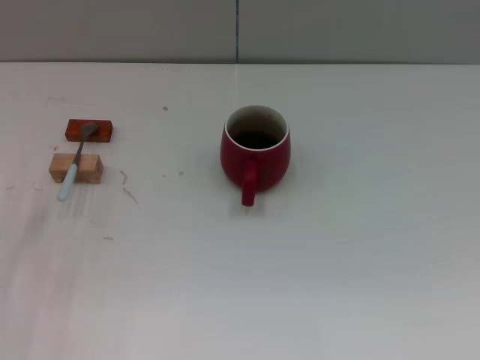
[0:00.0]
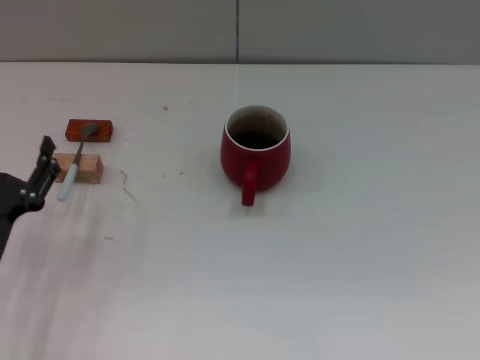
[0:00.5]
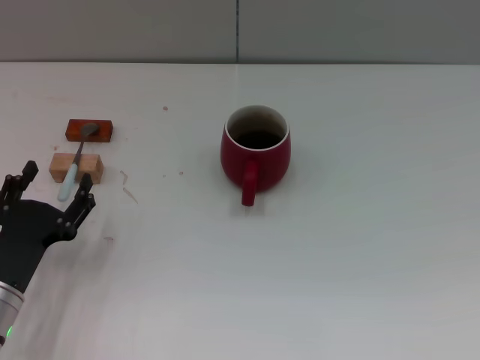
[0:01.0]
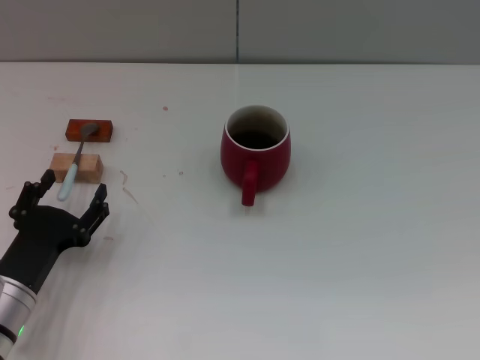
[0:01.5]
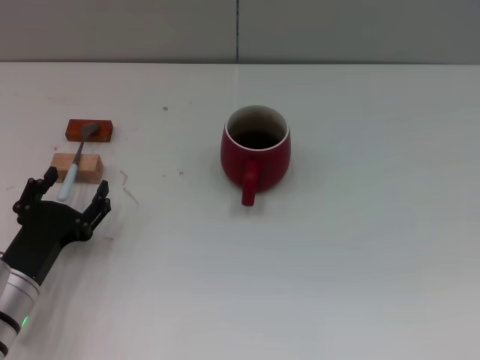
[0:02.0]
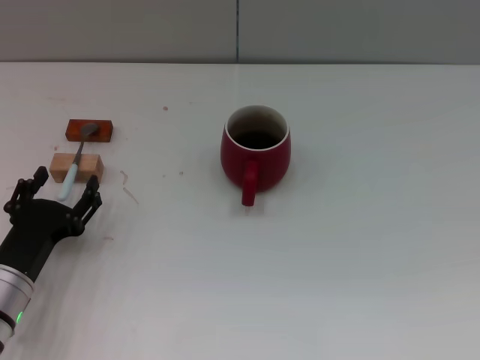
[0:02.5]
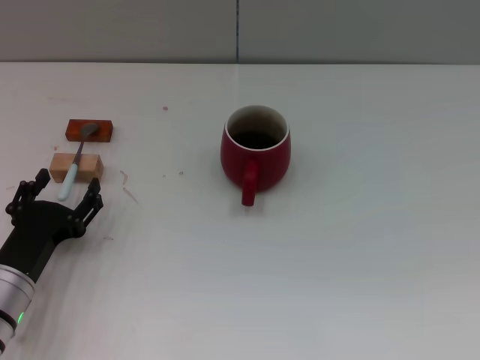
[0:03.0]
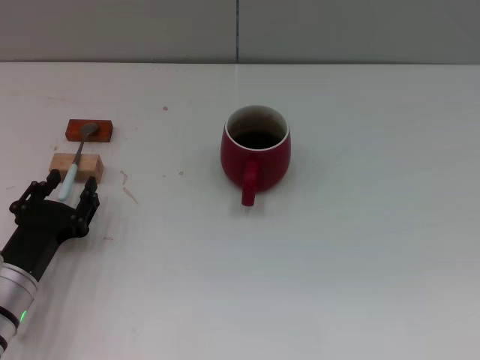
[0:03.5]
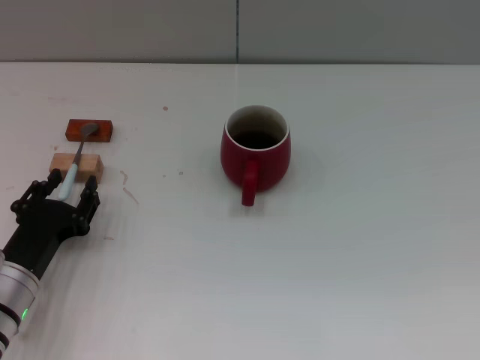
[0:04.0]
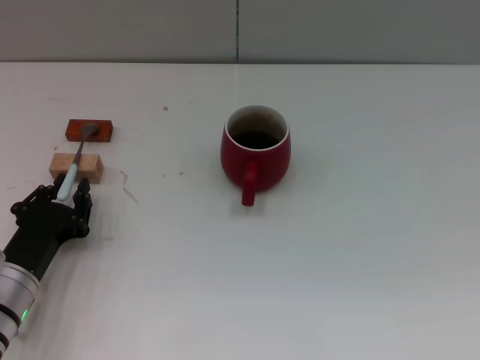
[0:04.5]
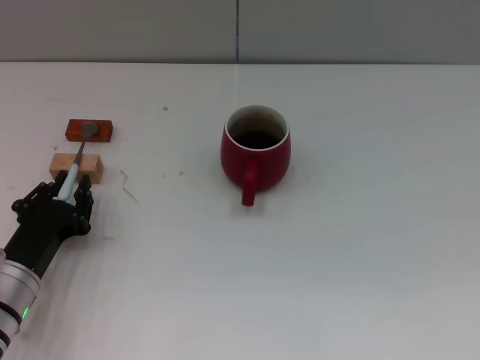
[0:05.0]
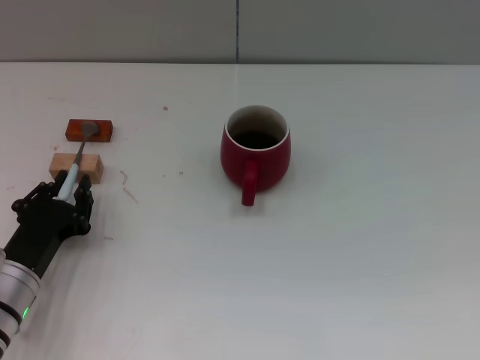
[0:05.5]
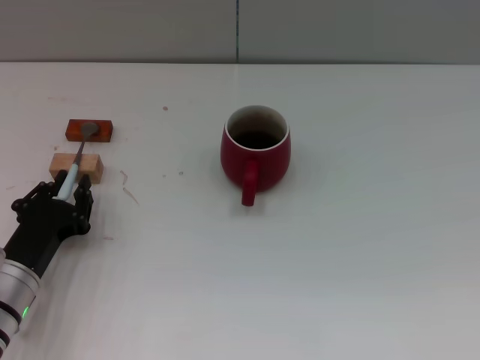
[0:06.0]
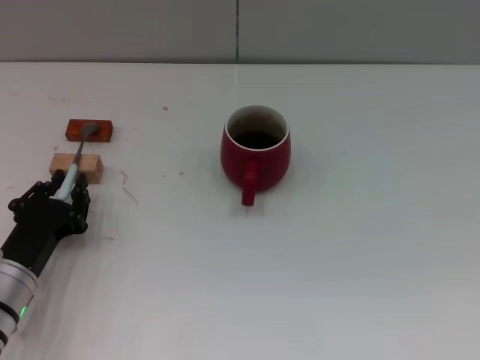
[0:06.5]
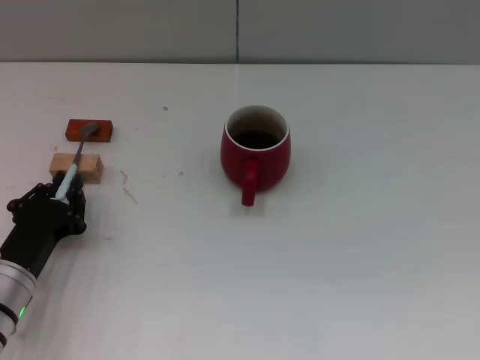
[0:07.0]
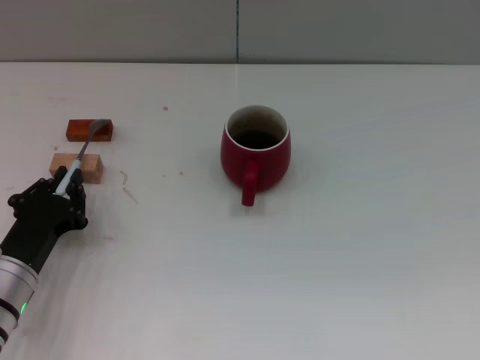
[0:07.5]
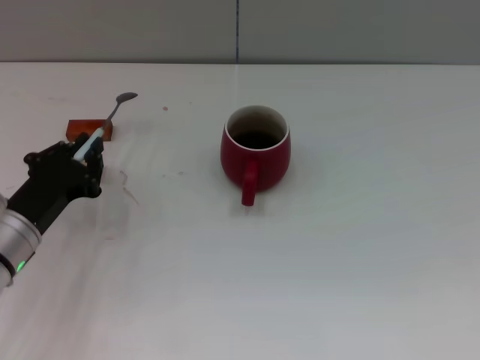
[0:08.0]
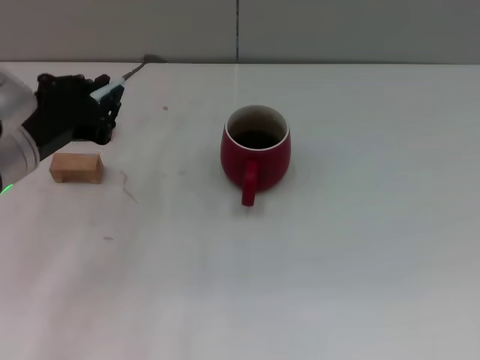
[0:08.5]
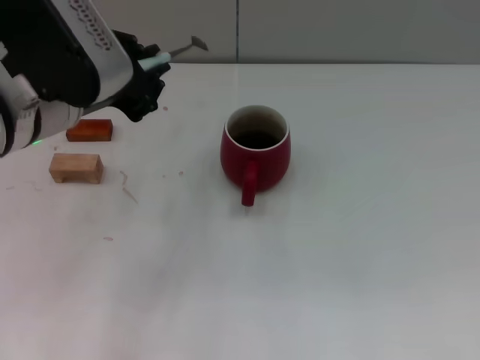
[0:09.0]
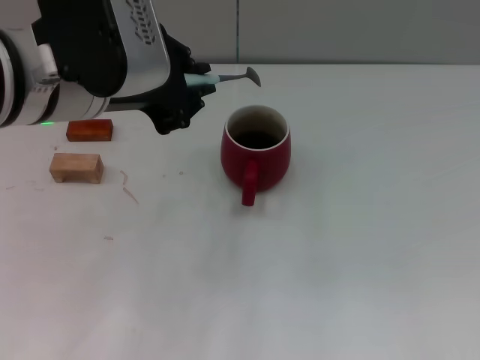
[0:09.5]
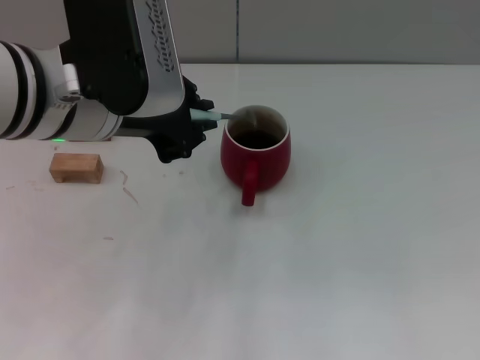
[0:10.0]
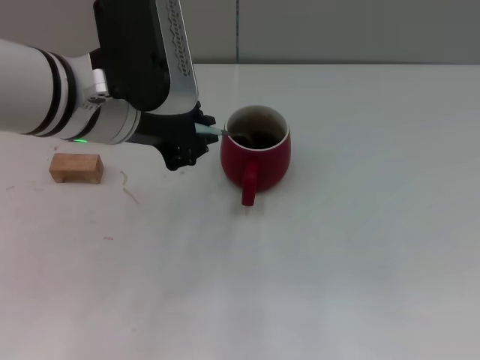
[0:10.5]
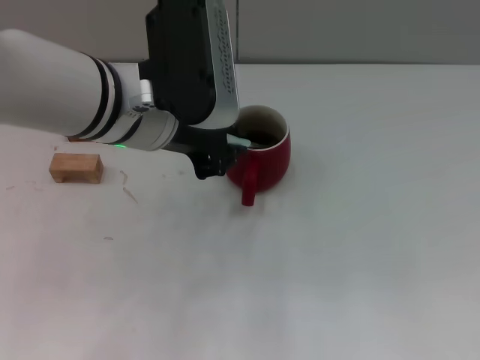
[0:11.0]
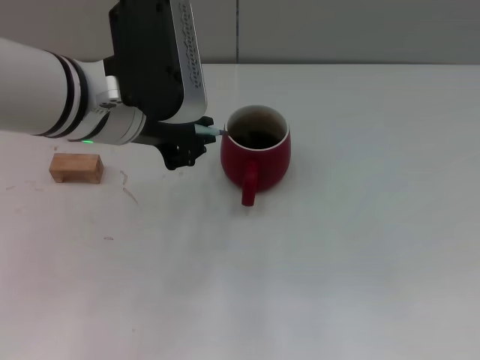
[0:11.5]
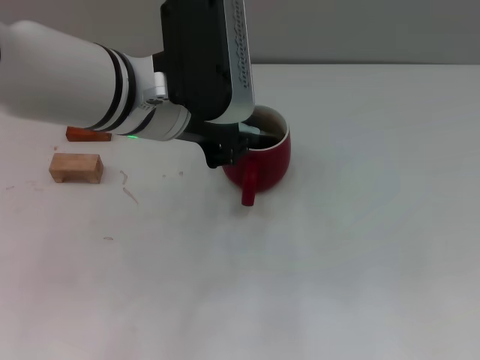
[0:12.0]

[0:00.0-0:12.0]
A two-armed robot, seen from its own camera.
Task of the whole recording: Move the red cup to the center, lift the blue spoon, stir it three times in the cup, and put the spoon into the cup.
Step, 0:00.5 to 0:09.0: Pick up the spoon with the left gripper.
0:00.0 to 0:02.0: The left gripper heads to the right, covering about 5 cm.
0:02.0 to 0:04.0: The left gripper closes.
0:04.0 to 0:06.0: The left gripper closes.
0:06.0 to 0:08.0: The left gripper moves approximately 5 cm.
0:08.0 to 0:10.0: The left gripper is displaced upward and to the right by roughly 25 cm.
0:10.0 to 0:12.0: The left gripper moves about 5 cm.

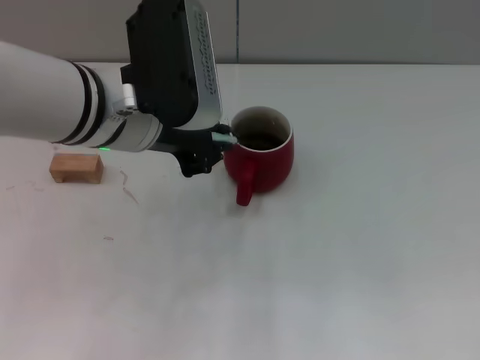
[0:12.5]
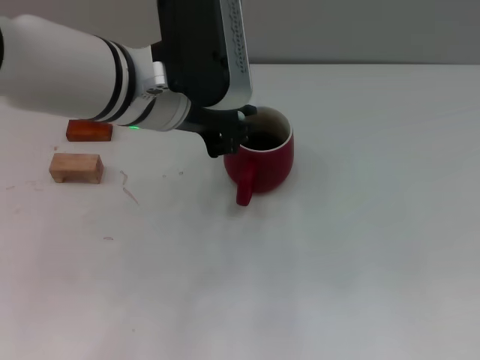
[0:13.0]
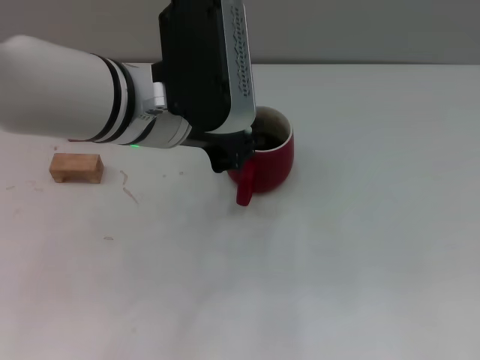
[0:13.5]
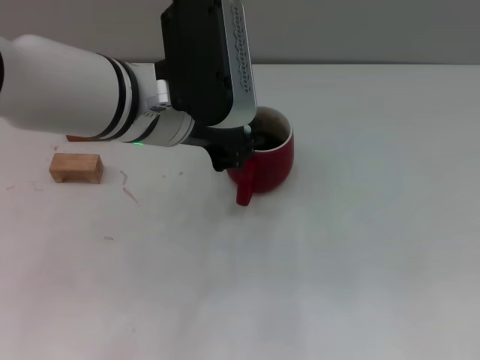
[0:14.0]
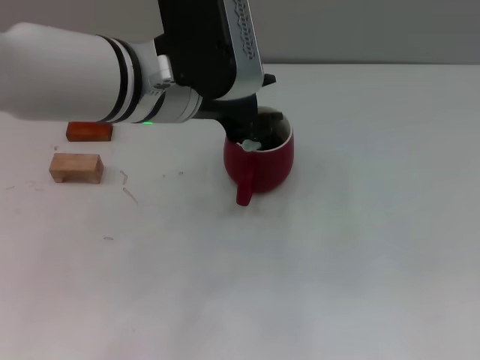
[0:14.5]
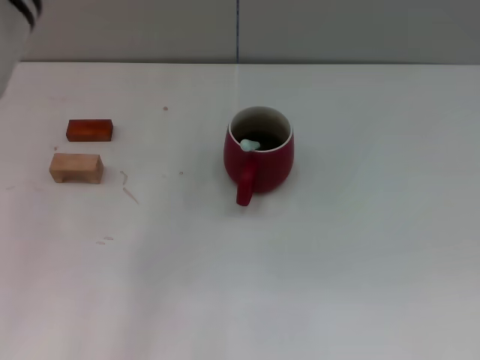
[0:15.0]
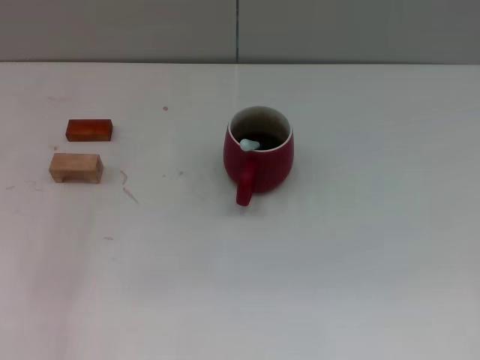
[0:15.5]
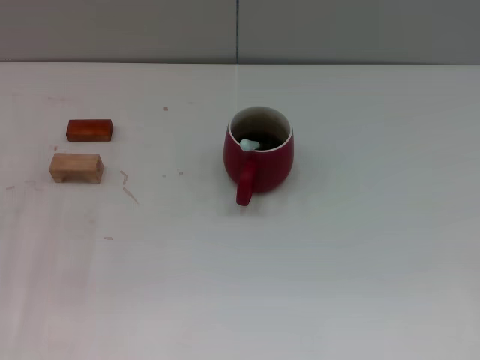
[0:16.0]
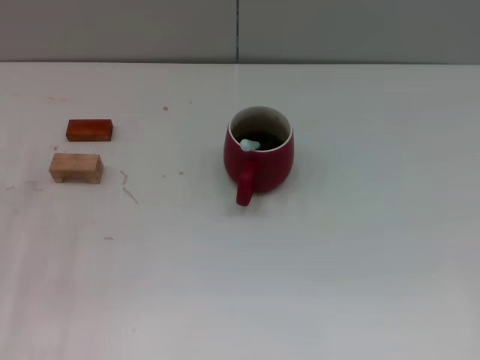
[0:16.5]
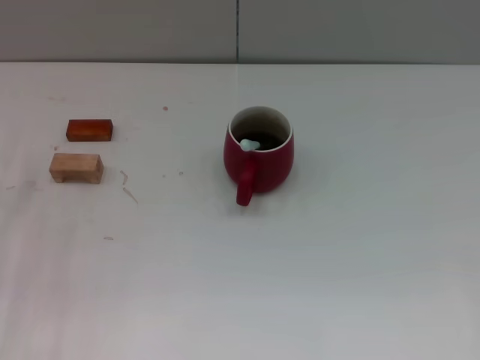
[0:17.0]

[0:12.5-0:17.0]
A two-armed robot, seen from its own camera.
Task of the whole recording: Move the red cup to the center, lift the blue spoon, stir it three times in the cup, and put the spoon into the cup.
Step, 0:12.5 to 0:15.5: Stir the coffee in the cup with the left gripper.
0:12.5 to 0:14.5: There are only small adjustments of the grippers.
0:14.5 to 0:17.0: The left gripper is displaced to the left and downward by roughly 25 cm, and opens its fingers.

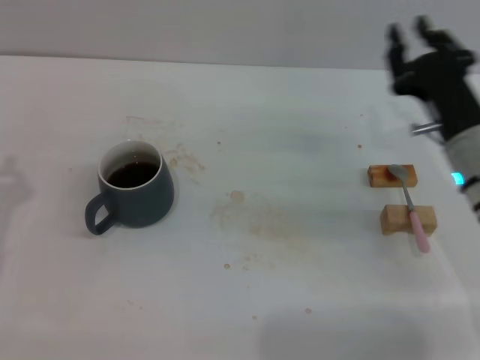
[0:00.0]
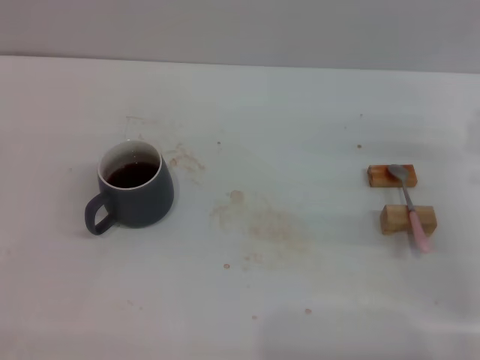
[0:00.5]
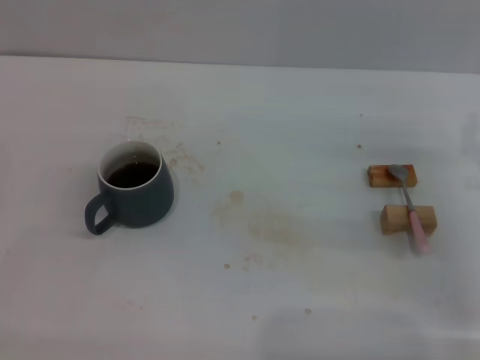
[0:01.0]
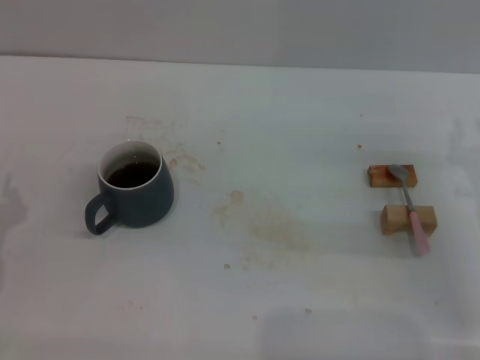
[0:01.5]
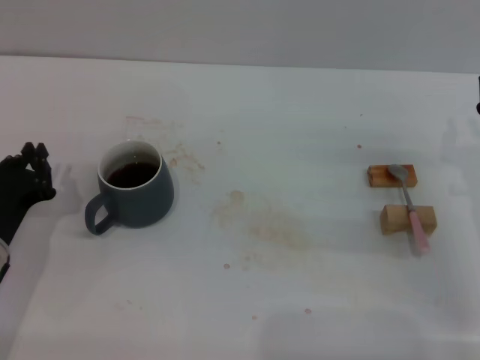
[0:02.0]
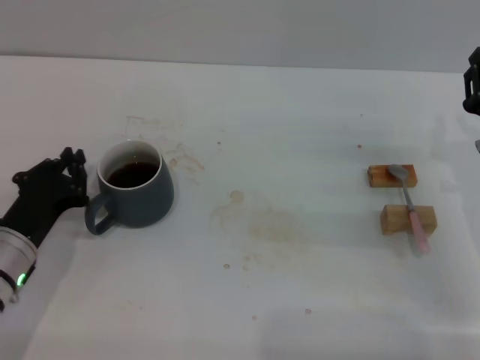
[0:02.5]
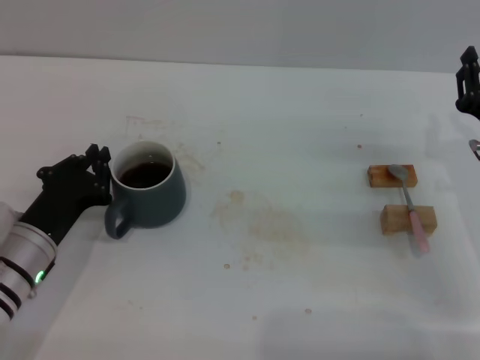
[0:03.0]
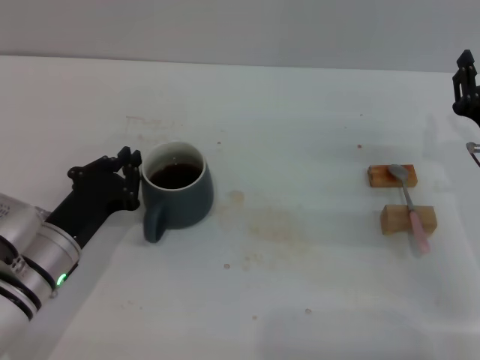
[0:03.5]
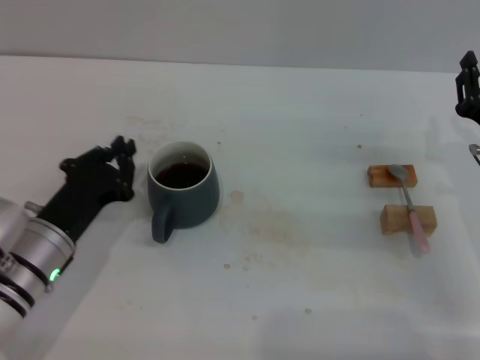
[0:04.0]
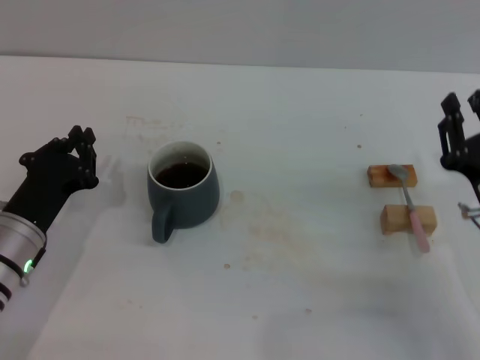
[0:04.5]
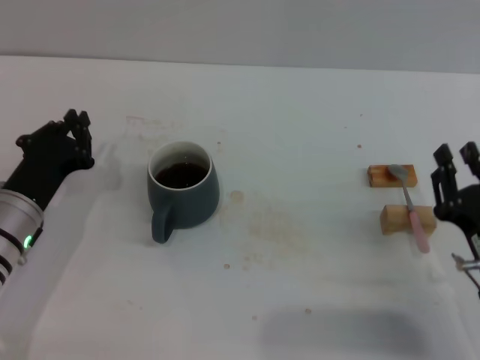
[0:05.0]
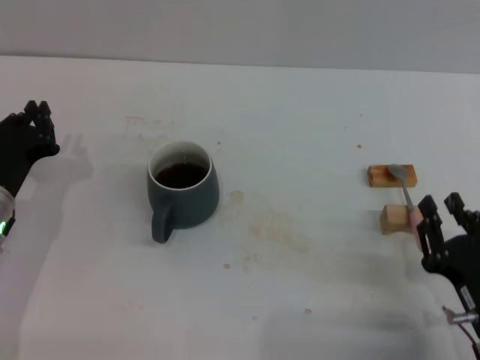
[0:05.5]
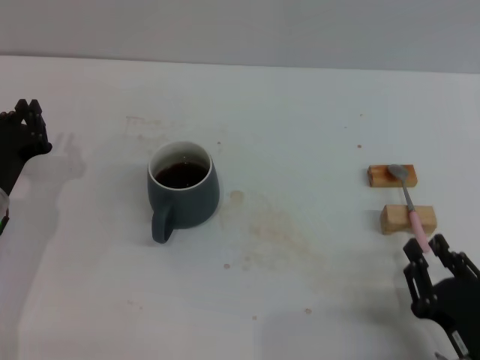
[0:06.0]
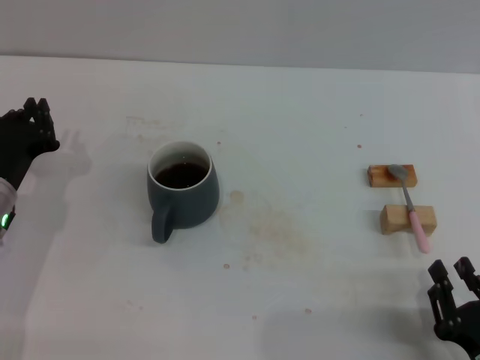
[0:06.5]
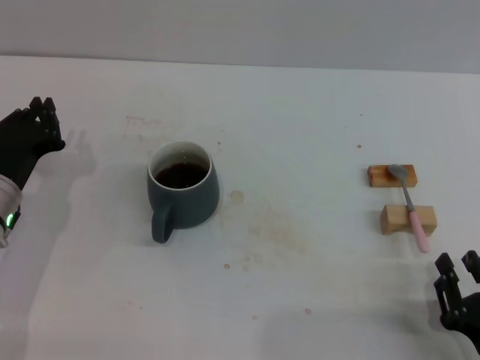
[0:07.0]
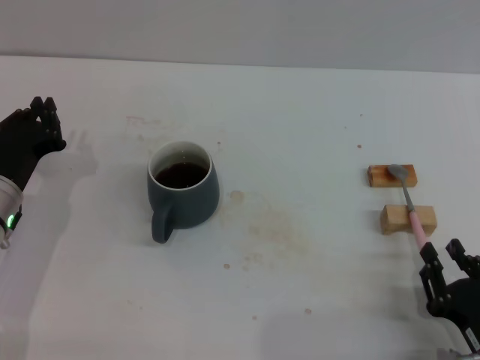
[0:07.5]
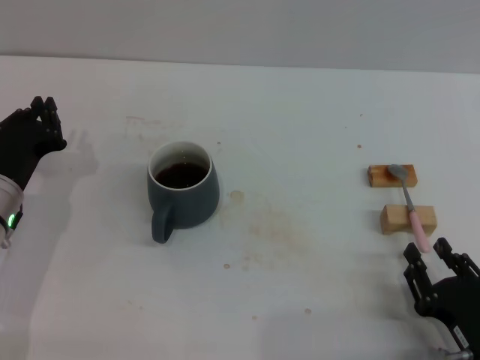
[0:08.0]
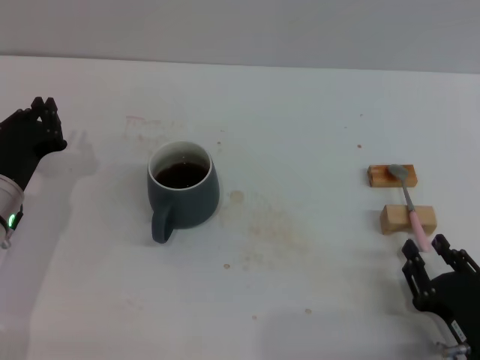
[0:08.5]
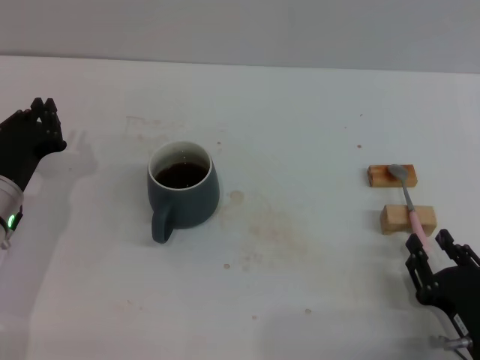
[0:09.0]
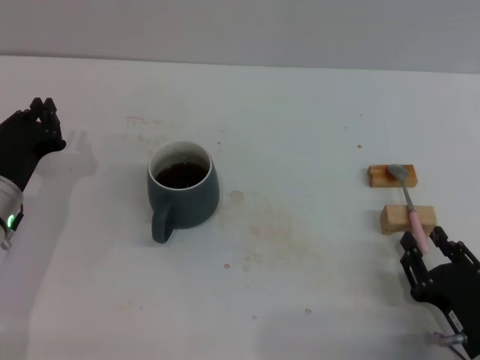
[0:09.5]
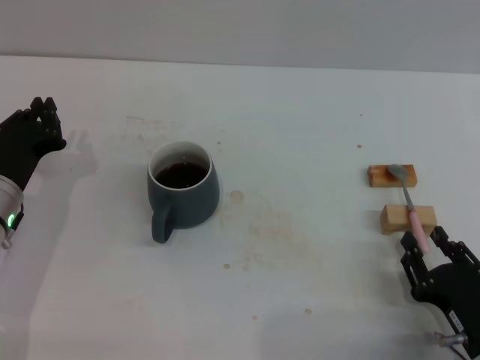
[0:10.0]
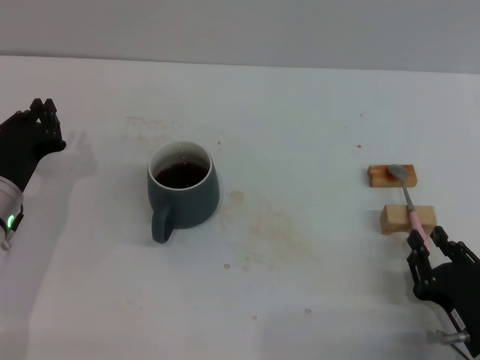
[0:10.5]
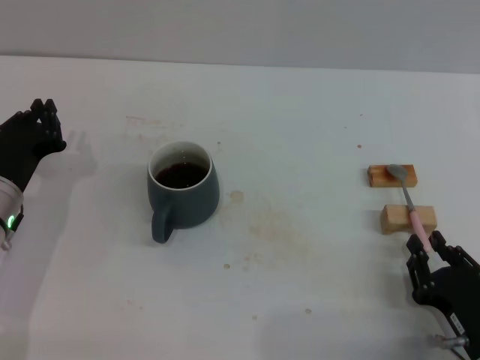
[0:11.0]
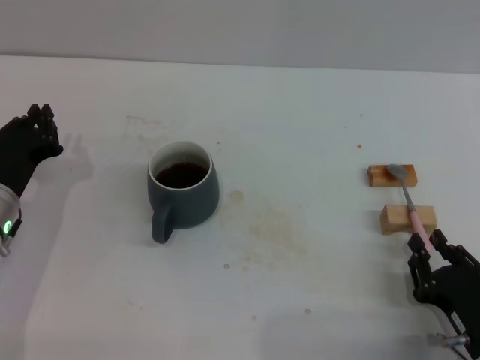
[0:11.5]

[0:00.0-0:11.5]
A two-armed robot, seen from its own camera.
Task of the whole recording: Move the grey cup to the center, lift the pink spoon, stir it three times in the cup, and put the spoon into the cup.
Step, 0:00.0 to 0:03.5: Move the cup with coffee to the center of view with the left gripper.
0:00.0 to 0:02.0: The right gripper is displaced to the right by some 5 cm; the left gripper ends up about 5 cm from where it was, and opens and closes again.
0:02.0 to 0:04.0: The left gripper shifts about 5 cm to the right.
0:04.0 to 0:06.0: The right gripper is displaced backward by approximately 20 cm. The left gripper shifts some 5 cm to the left.
0:06.0 to 0:09.5: The grippers make only small movements.
0:09.5 to 0:11.5: The two grippers keep their place.
